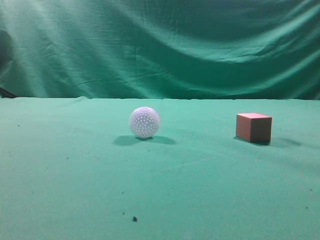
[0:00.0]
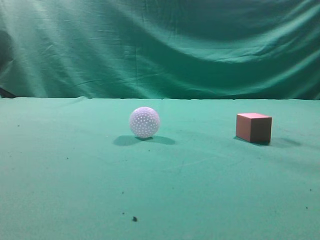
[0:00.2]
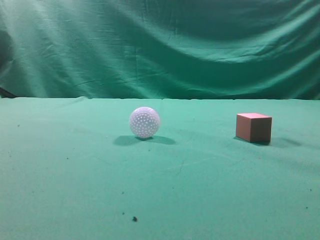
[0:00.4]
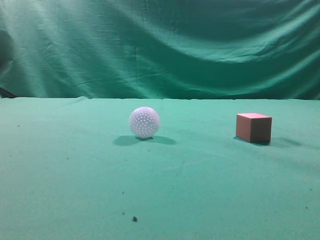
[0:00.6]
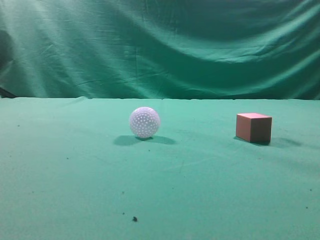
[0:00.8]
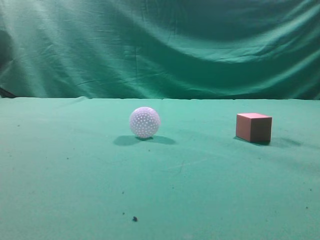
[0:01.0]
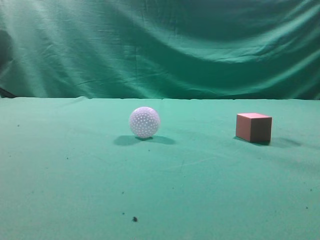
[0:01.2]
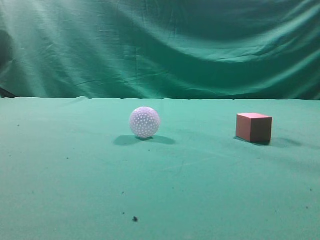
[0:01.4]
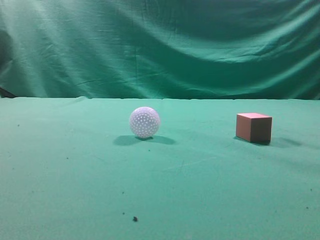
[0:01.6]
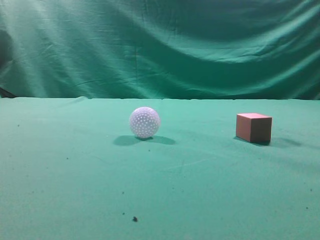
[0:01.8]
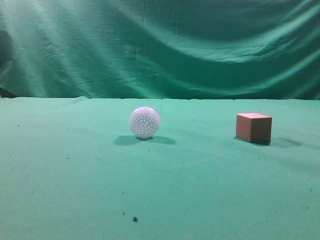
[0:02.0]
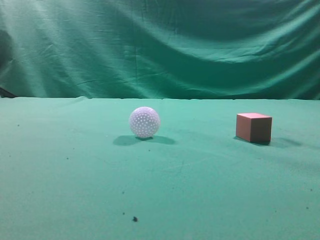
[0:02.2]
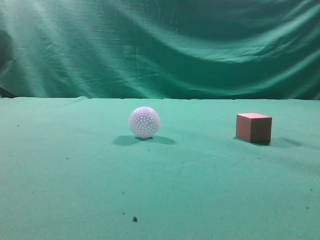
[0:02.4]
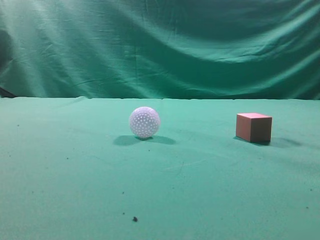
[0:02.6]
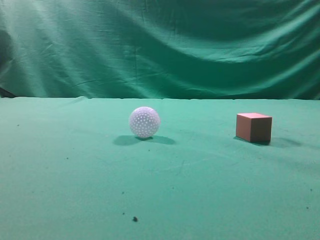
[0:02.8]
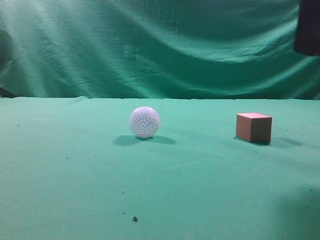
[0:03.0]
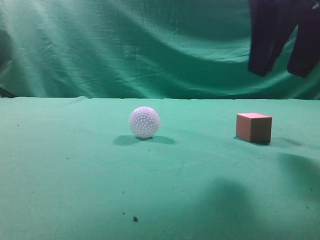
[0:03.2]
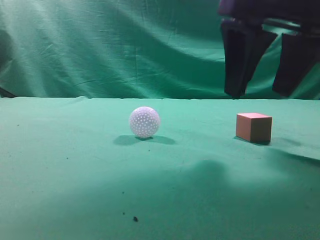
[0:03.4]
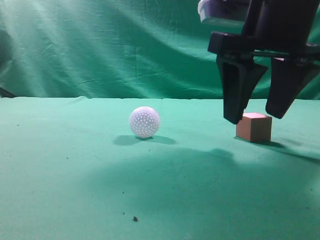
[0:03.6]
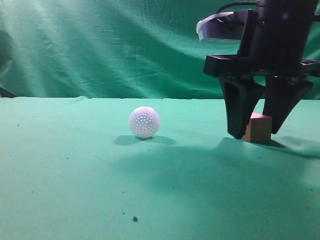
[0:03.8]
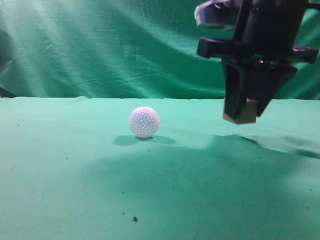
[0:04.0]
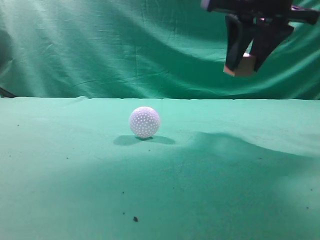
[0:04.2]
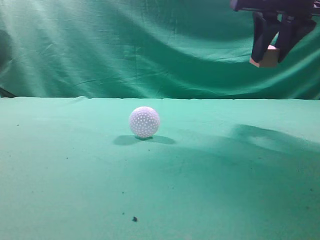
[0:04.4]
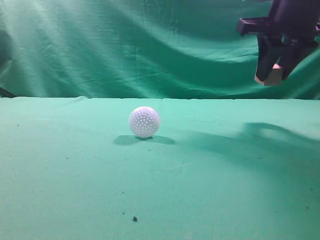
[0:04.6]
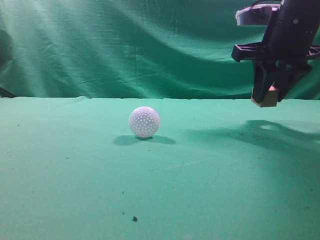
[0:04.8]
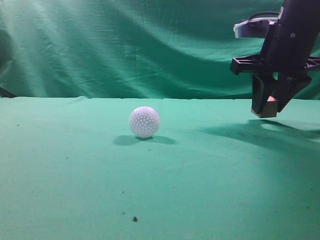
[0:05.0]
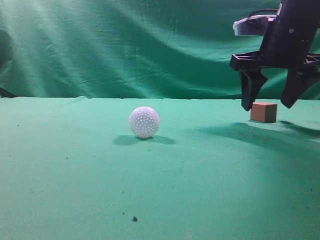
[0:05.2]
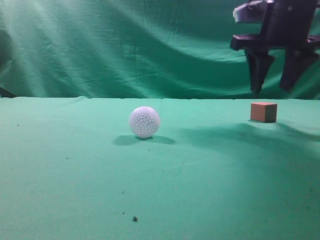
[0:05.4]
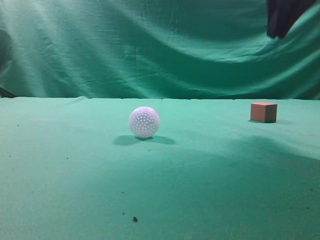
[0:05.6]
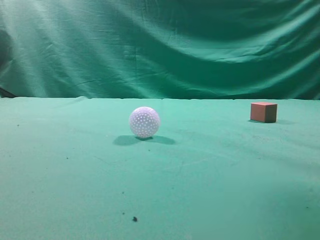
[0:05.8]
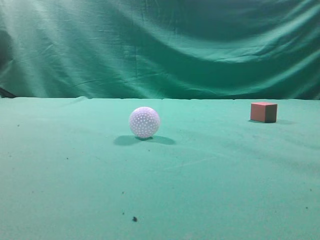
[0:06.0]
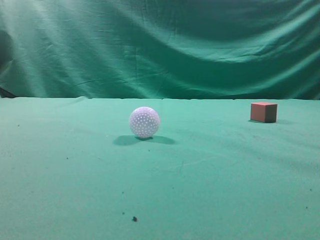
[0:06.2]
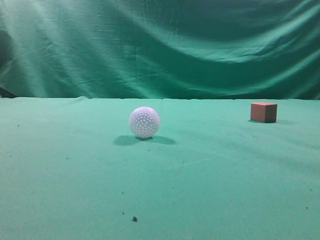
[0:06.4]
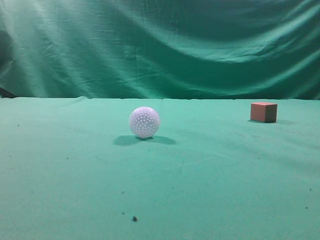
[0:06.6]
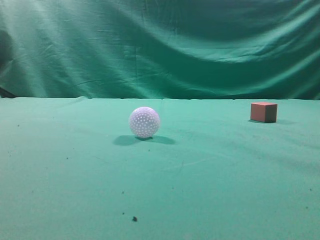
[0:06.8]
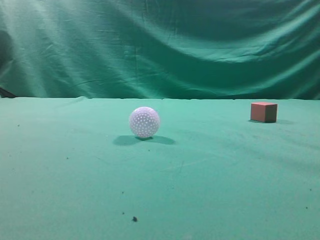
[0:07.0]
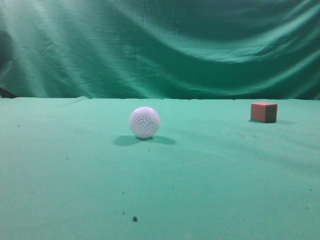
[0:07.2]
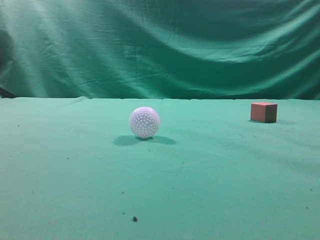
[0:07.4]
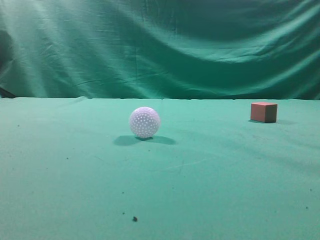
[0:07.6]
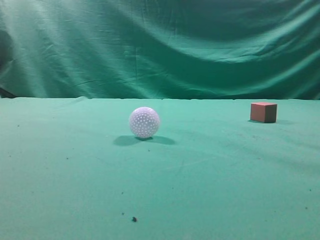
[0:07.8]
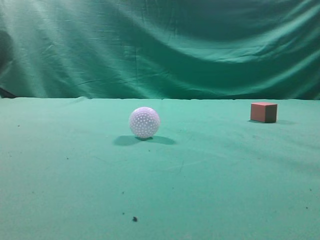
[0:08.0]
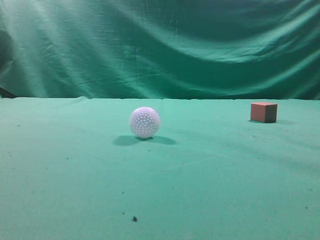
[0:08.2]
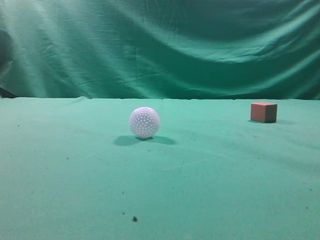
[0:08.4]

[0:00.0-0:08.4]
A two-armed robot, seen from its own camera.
Task of the whole recording: pick up the cube block and place it in another position on the table.
Step, 0:00.0 to 0:03.8: Pick up the small cube.
Step, 0:04.2 to 0:05.2: Place the small cube on the ahead of the table.
0:02.8 to 0:04.2: The right gripper travels forward by some 15 cm, and opens.
0:04.2 to 0:05.6: The right gripper goes some 5 cm upward, and closes its fingers.
0:05.6 to 0:07.0: The right gripper travels backward by roughly 25 cm.
